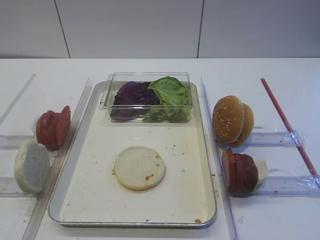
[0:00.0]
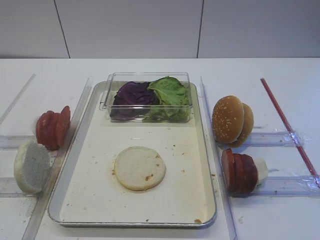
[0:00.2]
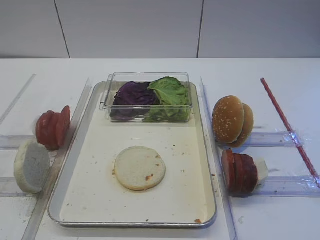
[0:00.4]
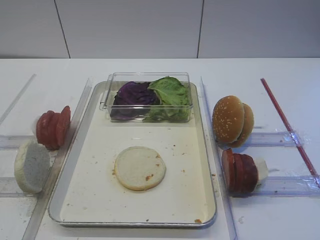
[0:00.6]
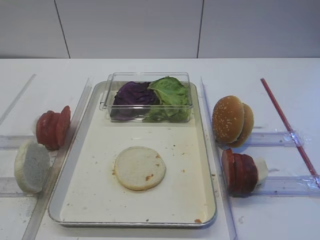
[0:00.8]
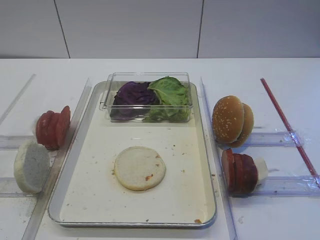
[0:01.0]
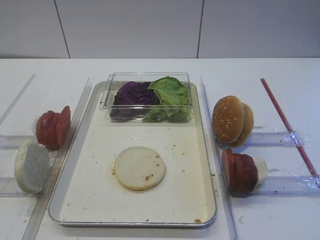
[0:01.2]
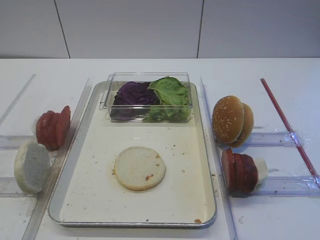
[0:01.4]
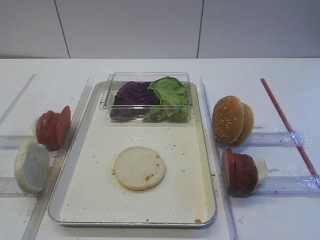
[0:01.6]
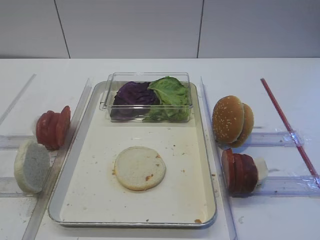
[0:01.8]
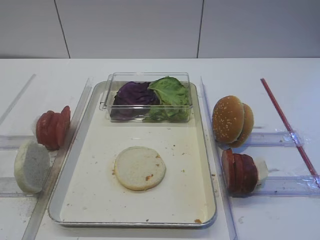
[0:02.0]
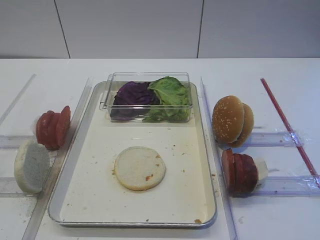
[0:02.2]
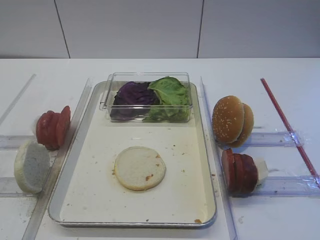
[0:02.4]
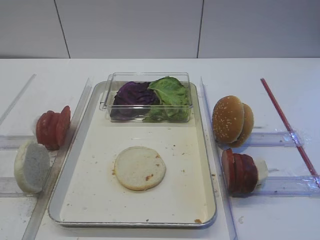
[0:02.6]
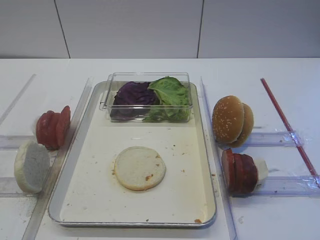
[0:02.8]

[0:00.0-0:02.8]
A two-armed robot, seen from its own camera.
1.4 to 2.8 s: Neither gripper changes place.

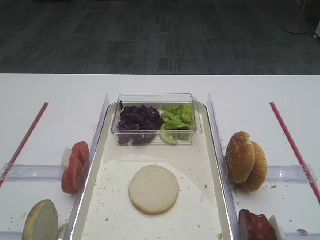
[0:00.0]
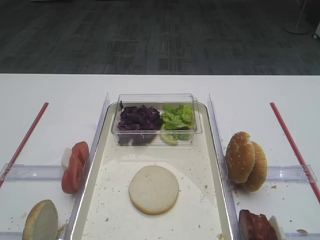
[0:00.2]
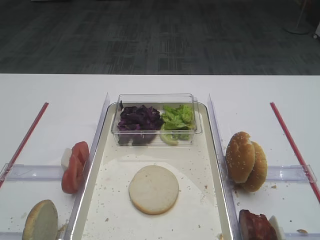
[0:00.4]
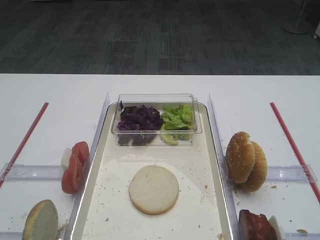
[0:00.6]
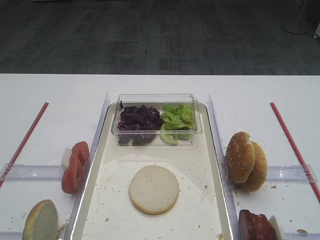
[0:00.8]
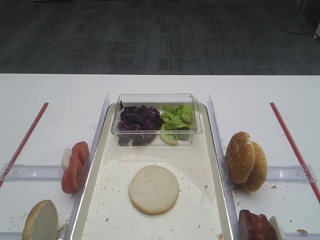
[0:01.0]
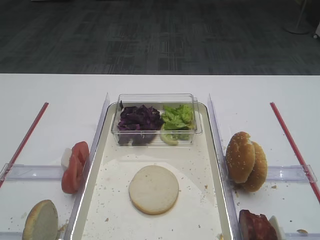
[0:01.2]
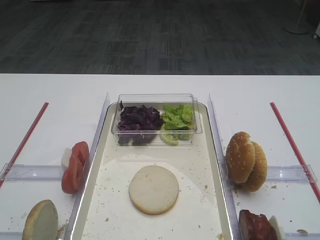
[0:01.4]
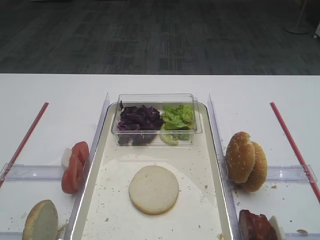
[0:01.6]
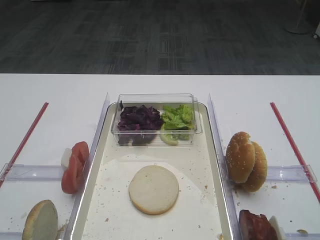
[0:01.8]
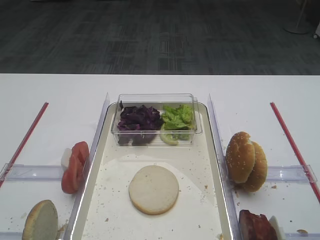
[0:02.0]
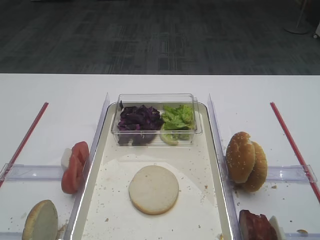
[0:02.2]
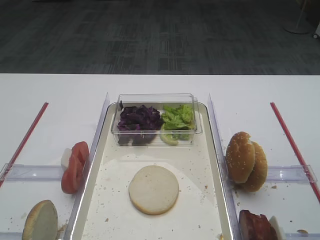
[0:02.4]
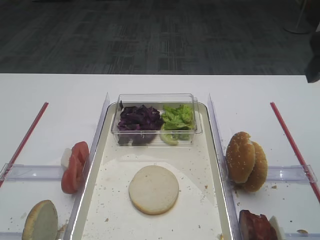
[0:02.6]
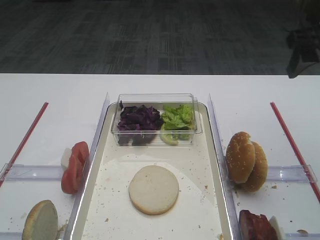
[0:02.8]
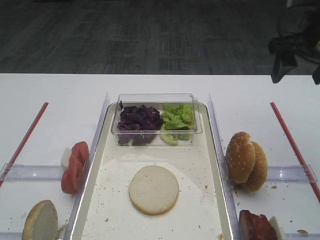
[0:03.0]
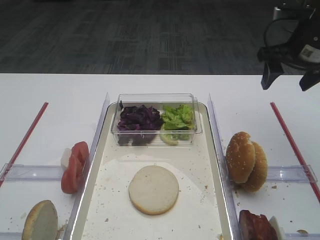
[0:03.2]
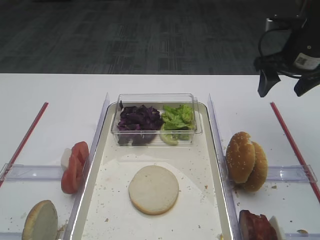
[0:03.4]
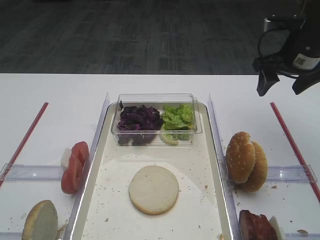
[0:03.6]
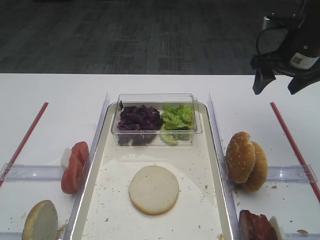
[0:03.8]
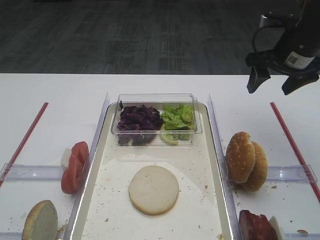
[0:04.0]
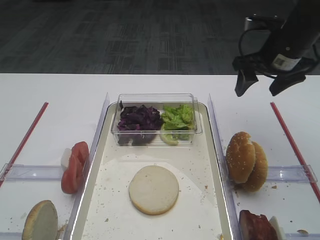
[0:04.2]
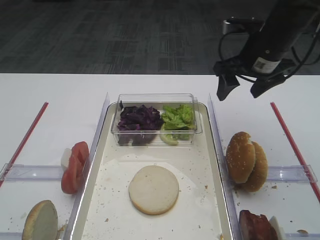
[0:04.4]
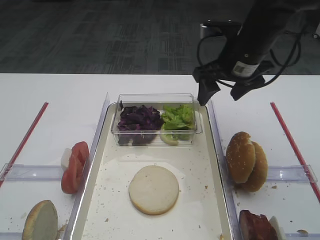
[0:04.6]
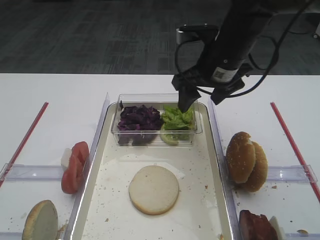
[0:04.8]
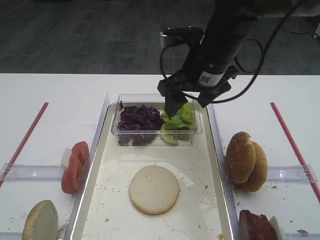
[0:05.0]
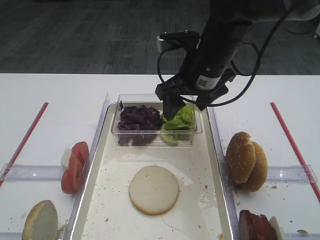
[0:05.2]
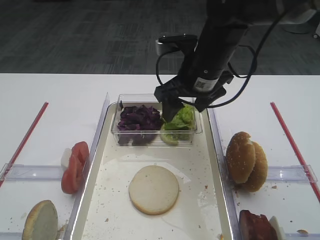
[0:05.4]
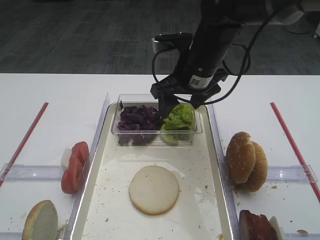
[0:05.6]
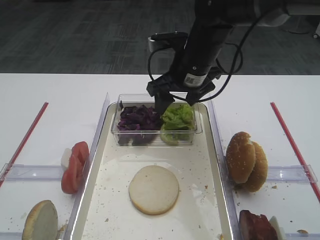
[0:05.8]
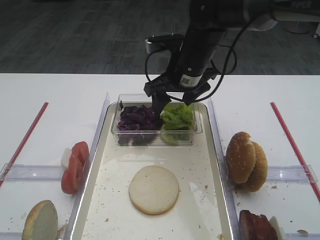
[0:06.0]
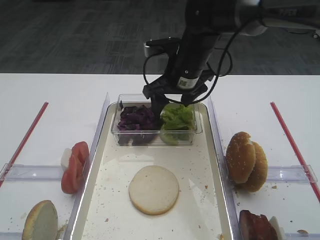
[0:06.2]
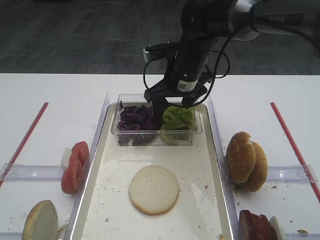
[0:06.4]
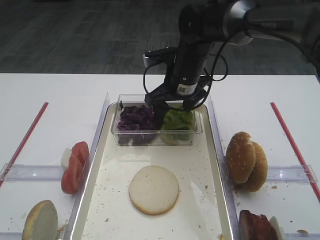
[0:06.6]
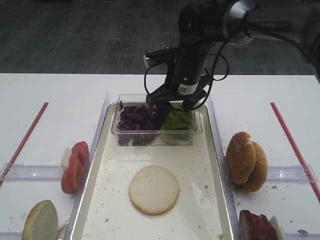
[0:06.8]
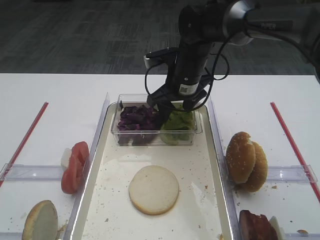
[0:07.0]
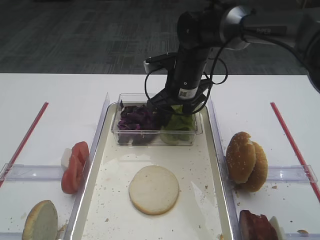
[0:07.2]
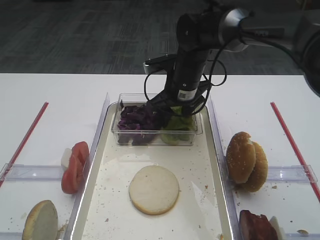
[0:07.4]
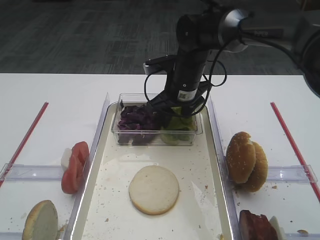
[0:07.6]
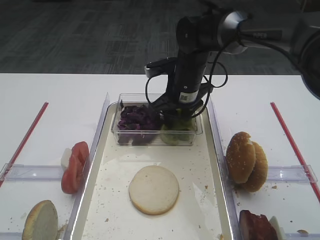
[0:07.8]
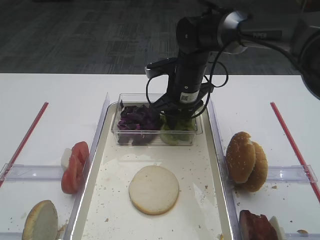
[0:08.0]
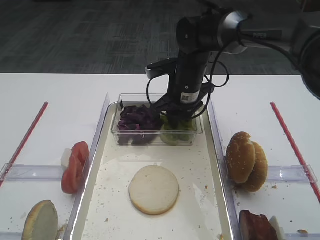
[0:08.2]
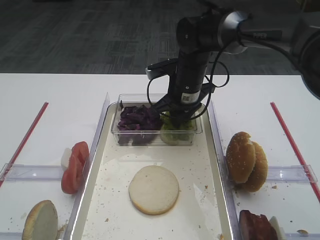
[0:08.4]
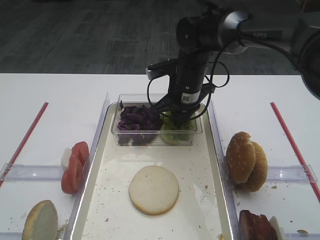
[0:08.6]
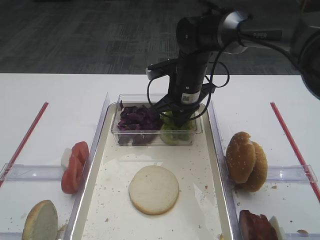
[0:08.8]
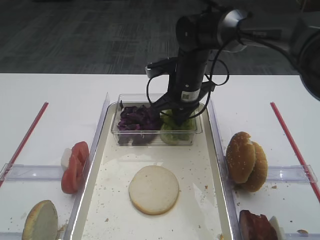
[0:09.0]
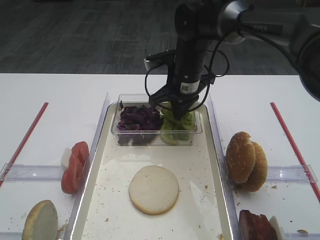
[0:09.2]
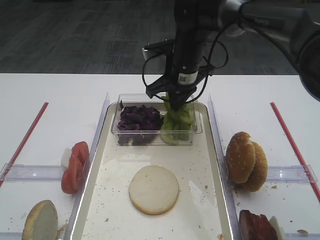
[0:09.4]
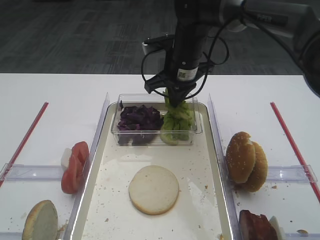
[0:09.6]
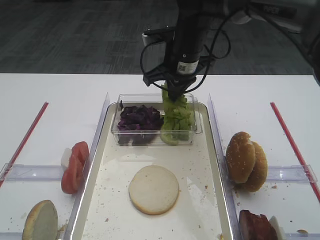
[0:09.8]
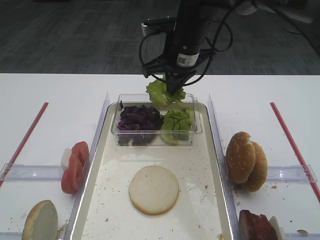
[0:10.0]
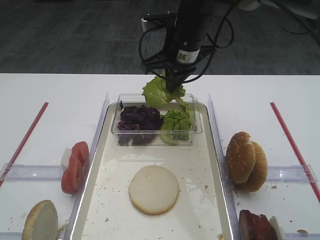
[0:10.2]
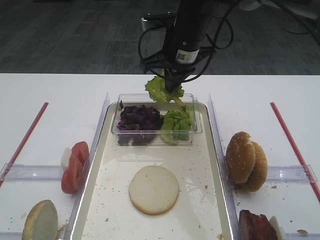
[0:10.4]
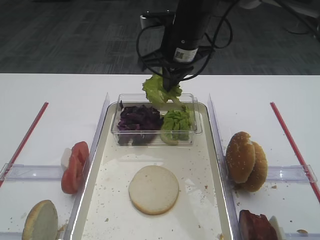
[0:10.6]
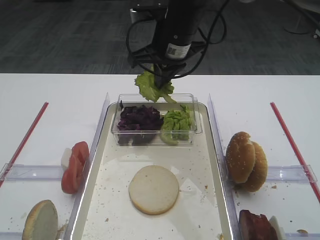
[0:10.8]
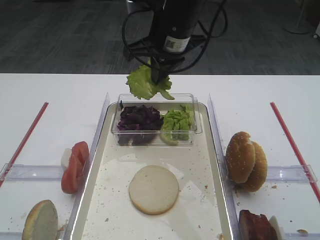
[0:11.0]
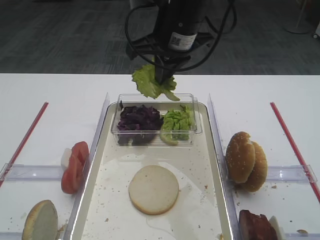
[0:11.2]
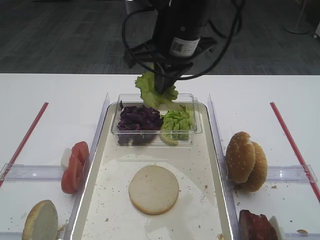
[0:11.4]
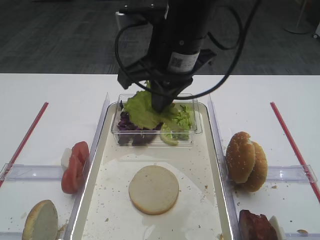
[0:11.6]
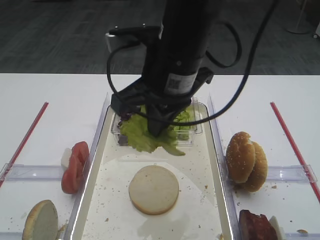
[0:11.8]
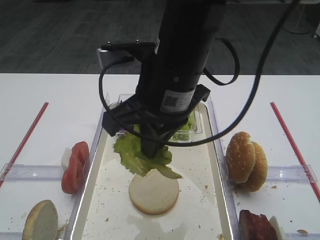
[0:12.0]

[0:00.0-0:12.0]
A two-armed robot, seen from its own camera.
Step, 0.0 to 9.8 s: Pick up the lettuce leaf with the right gripper.
1.6 to 3.0 s: The right gripper goes about 30 cm forward.
3.0 to 4.4 s: The right gripper shifts approximately 5 cm to the left.
4.4 to 6.0 s: The right gripper goes about 15 cm to the left.
6.0 to 7.6 s: The right gripper is displaced downward by approximately 5 cm.
7.6 to 9.0 s: The right gripper closes.
9.0 to 10.4 s: The right gripper heads upward, covering roughly 10 cm.
10.4 to 12.0 s: The right gripper is displaced backward by about 15 cm.

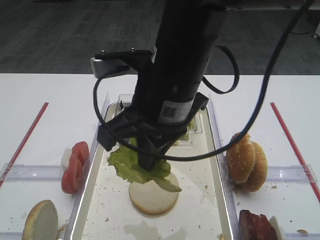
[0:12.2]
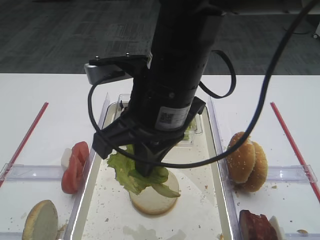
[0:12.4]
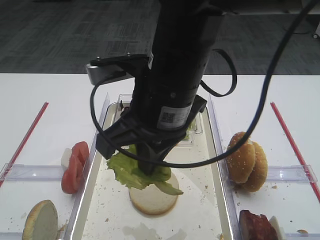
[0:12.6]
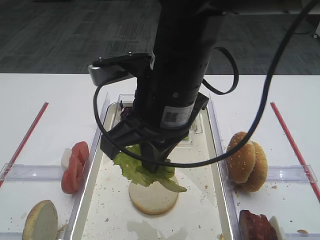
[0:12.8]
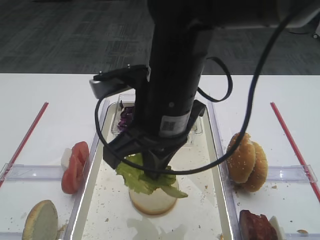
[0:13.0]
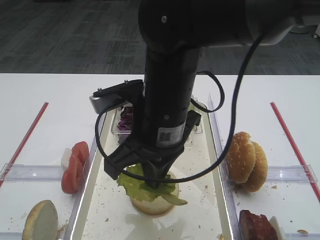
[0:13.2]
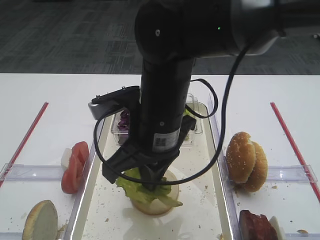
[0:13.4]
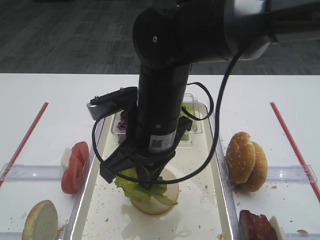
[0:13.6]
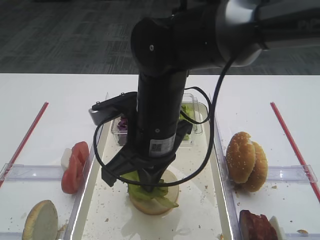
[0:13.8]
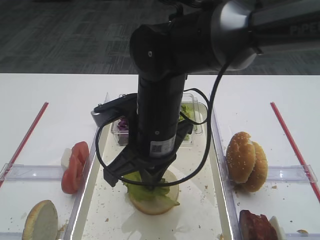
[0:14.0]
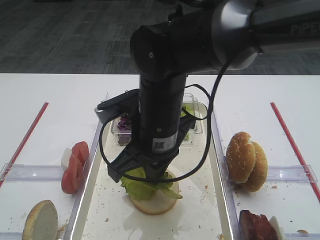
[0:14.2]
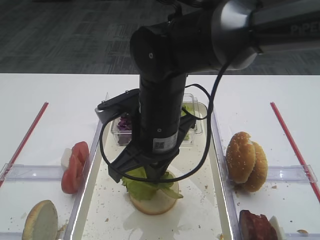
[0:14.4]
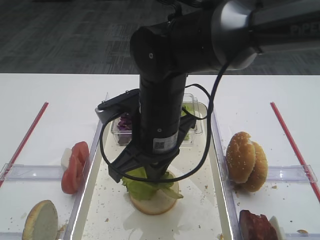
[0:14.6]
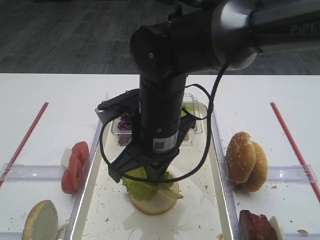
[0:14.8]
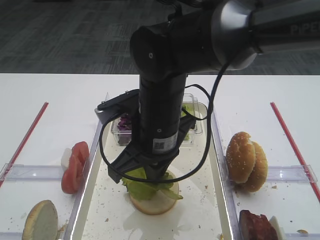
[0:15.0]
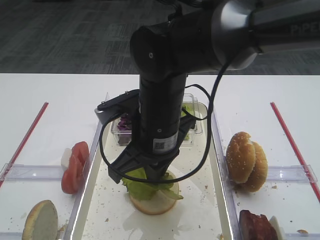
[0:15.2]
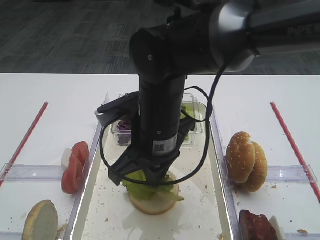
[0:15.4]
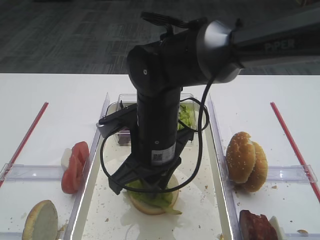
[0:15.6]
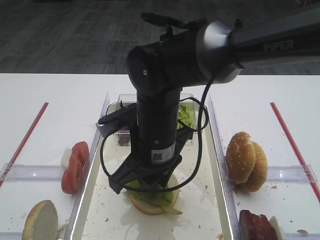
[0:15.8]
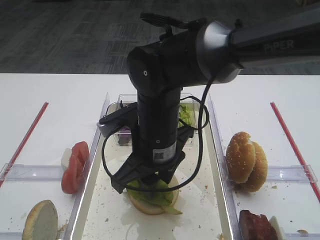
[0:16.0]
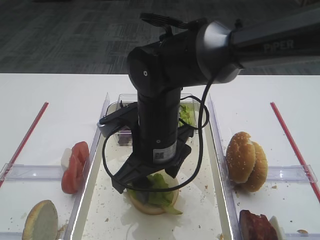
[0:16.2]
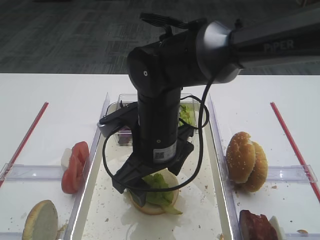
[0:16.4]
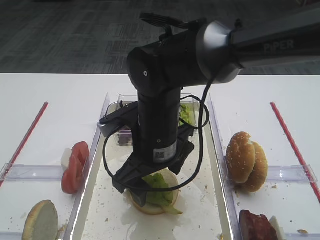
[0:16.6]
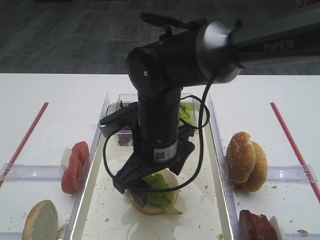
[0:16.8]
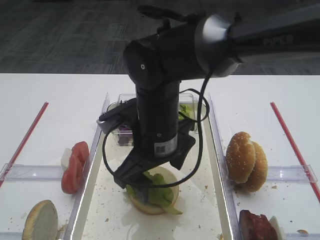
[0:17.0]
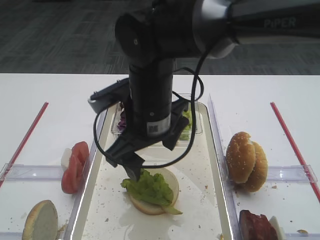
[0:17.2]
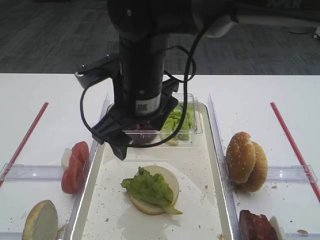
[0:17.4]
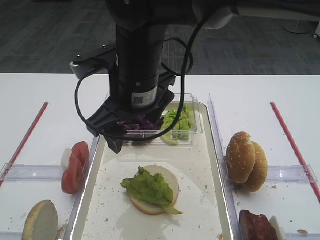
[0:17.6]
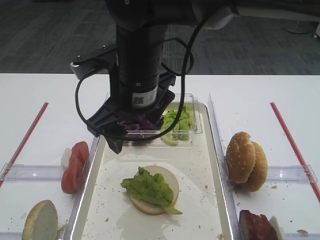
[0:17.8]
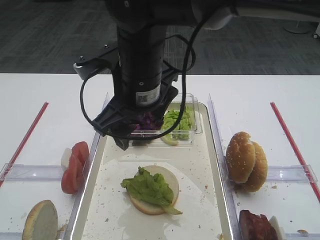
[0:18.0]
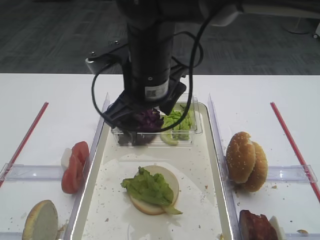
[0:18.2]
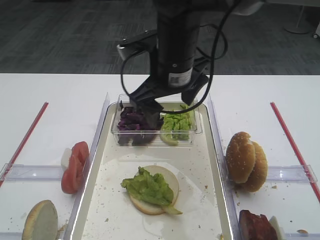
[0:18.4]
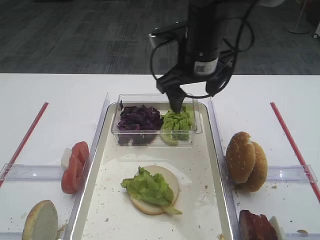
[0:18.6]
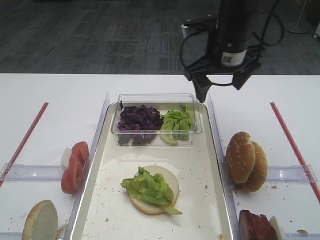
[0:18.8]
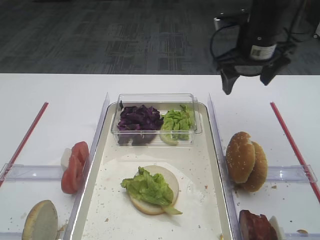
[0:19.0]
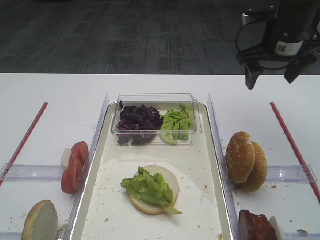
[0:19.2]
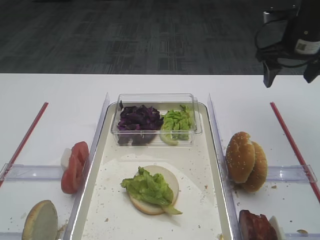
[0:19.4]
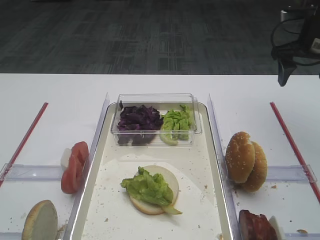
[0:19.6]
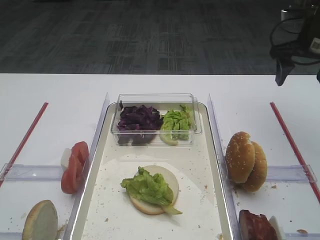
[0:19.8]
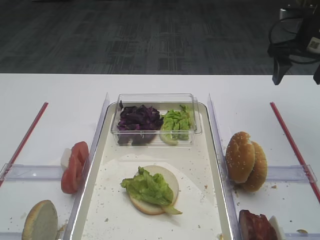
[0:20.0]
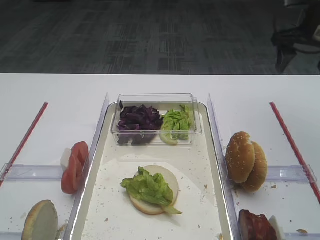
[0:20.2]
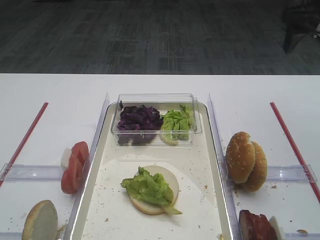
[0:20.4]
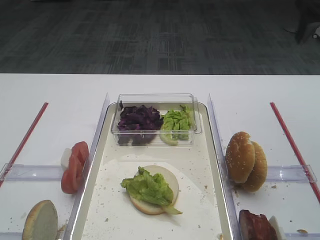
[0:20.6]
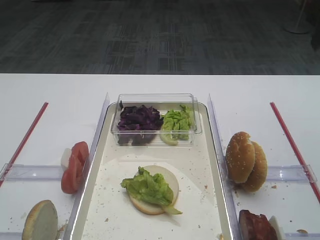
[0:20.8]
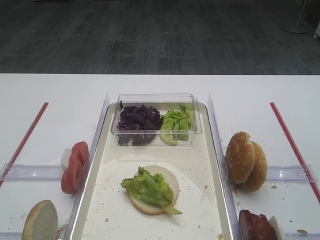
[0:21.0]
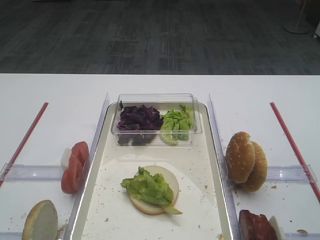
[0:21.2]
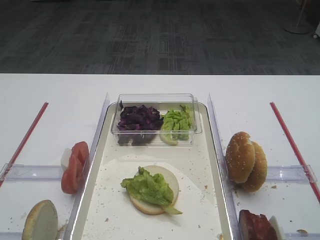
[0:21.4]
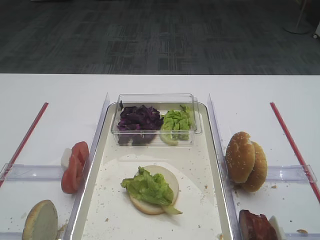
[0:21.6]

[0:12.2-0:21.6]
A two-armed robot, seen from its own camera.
Step, 12.2 to 17.2 s: Place the lettuce leaf on the bread slice with the right gripper.
12.2 to 13.8 s: The right gripper heads downward, covering roughly 5 cm.
13.8 to 15.4 s: There are only small adjustments of the grippers.
15.4 to 17.0 s: The right gripper opens its fingers.
17.0 to 18.4 s: The right gripper moves upward and forward, approximately 10 cm.
18.4 to 20.0 s: The right gripper is displaced to the right by about 25 cm.
20.0 to 21.6 s: The right gripper travels backward by some 30 cm.
